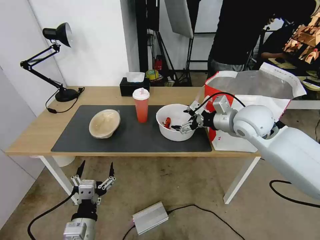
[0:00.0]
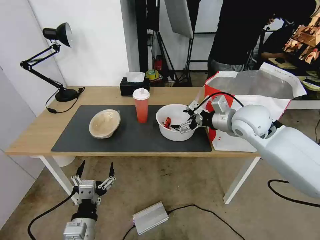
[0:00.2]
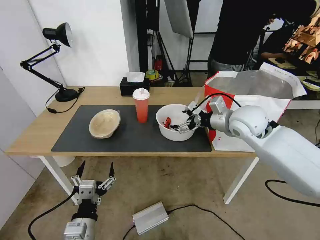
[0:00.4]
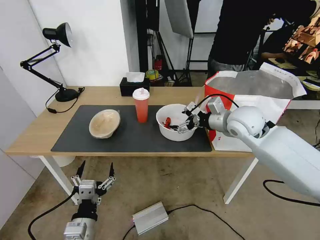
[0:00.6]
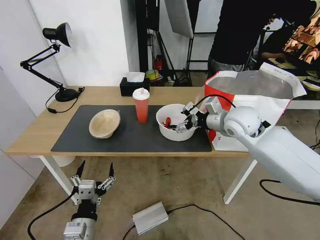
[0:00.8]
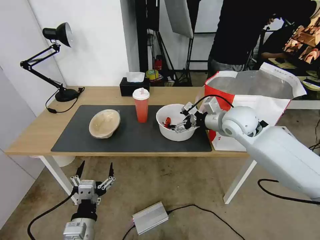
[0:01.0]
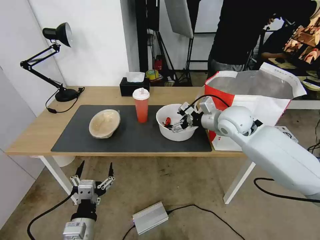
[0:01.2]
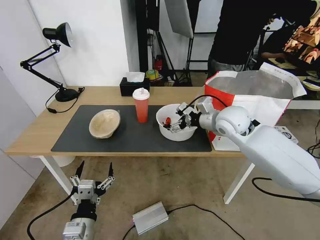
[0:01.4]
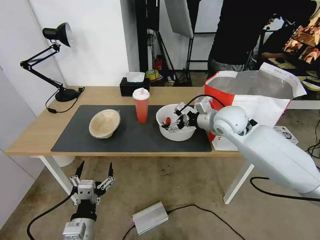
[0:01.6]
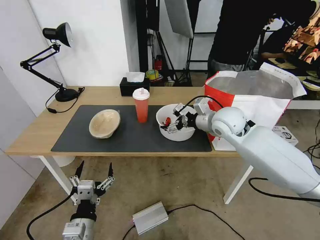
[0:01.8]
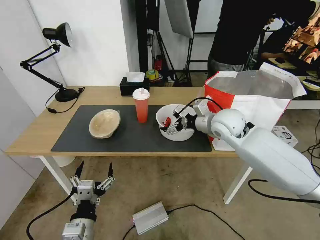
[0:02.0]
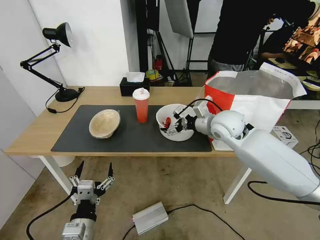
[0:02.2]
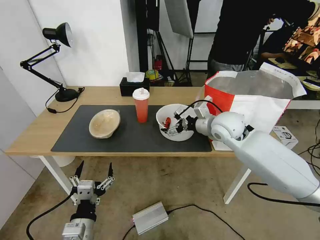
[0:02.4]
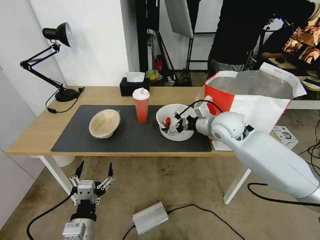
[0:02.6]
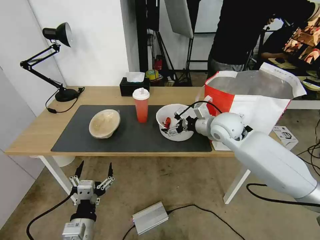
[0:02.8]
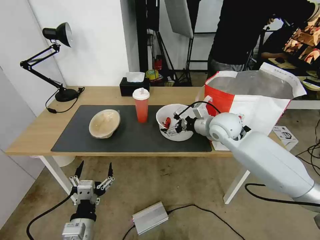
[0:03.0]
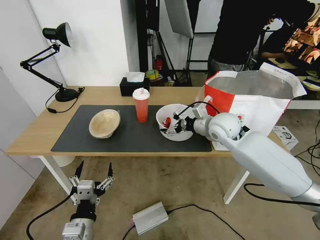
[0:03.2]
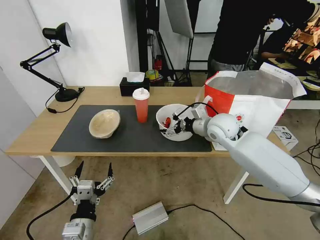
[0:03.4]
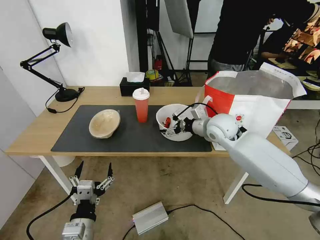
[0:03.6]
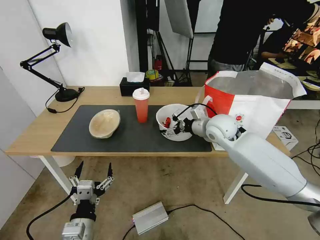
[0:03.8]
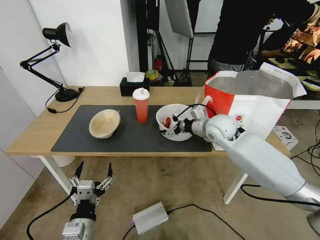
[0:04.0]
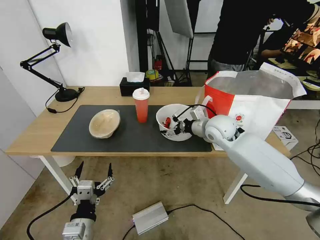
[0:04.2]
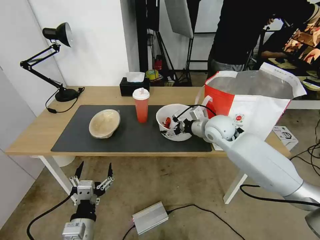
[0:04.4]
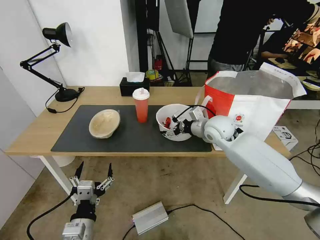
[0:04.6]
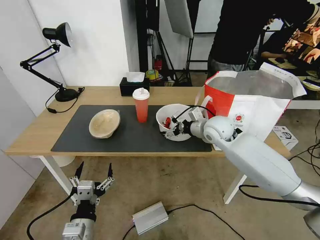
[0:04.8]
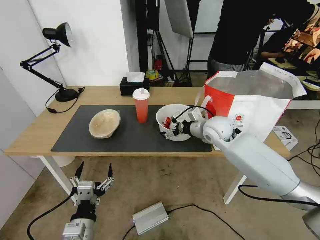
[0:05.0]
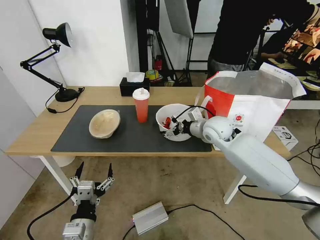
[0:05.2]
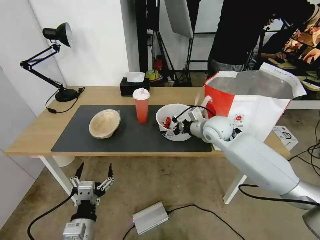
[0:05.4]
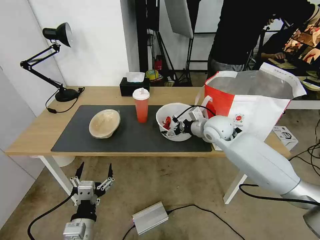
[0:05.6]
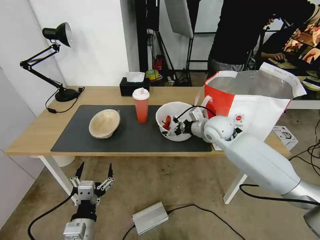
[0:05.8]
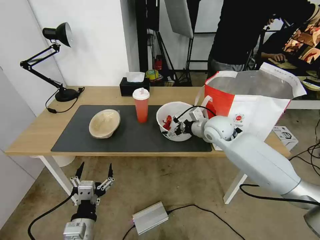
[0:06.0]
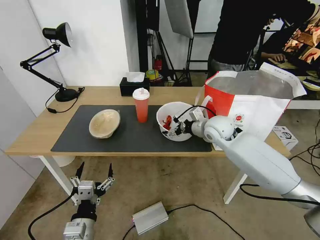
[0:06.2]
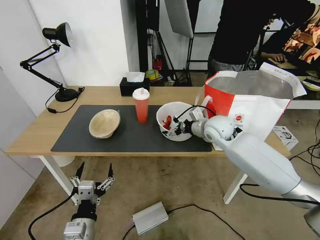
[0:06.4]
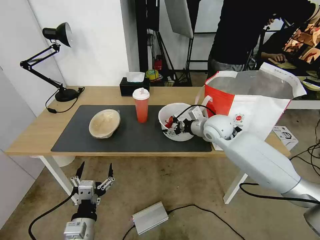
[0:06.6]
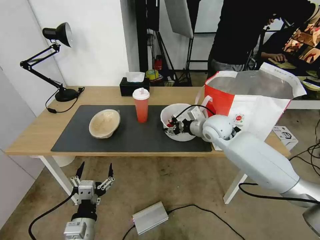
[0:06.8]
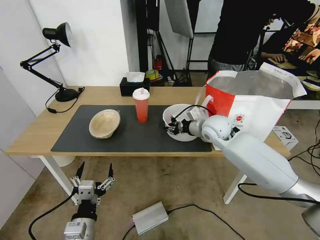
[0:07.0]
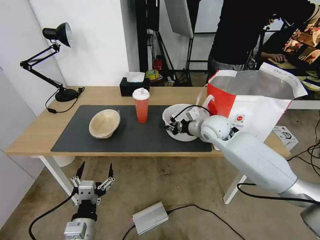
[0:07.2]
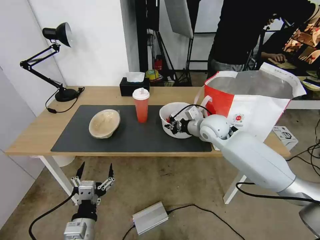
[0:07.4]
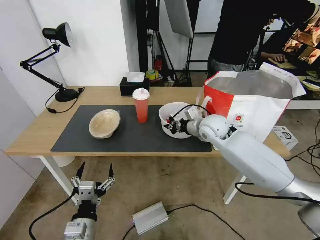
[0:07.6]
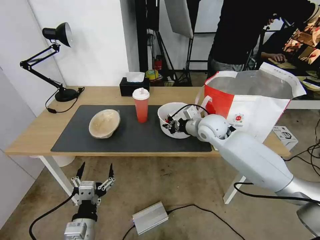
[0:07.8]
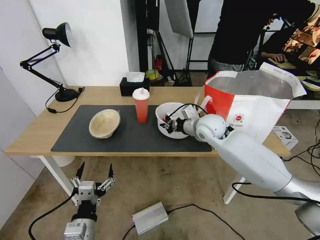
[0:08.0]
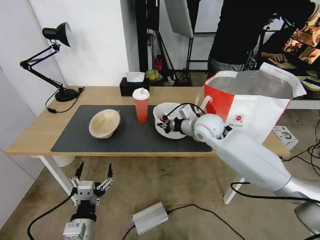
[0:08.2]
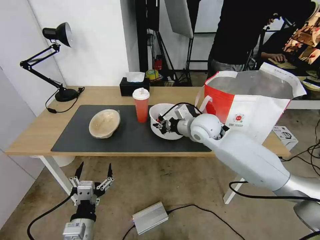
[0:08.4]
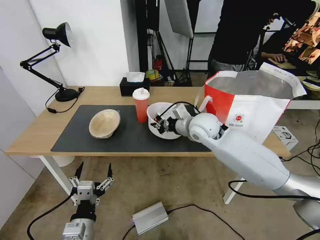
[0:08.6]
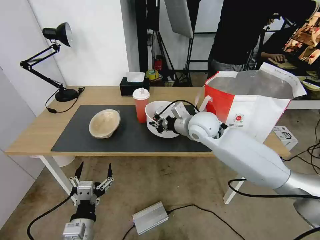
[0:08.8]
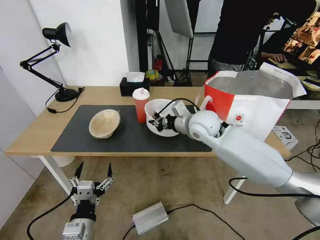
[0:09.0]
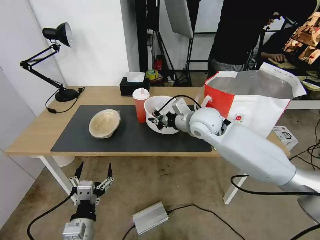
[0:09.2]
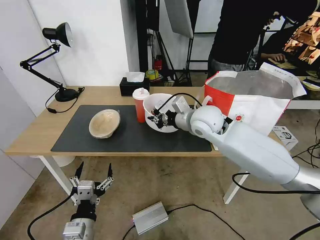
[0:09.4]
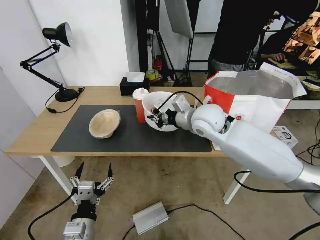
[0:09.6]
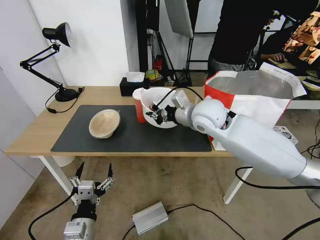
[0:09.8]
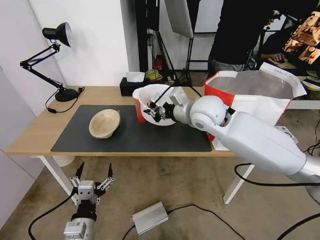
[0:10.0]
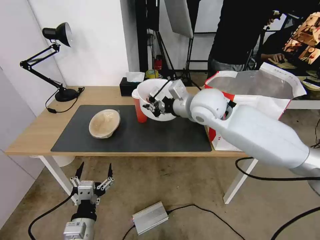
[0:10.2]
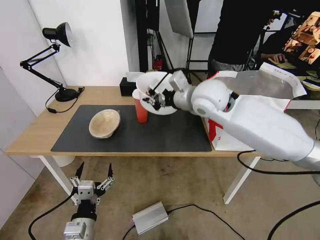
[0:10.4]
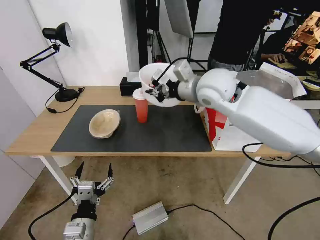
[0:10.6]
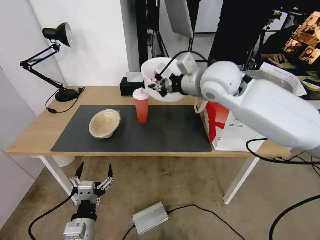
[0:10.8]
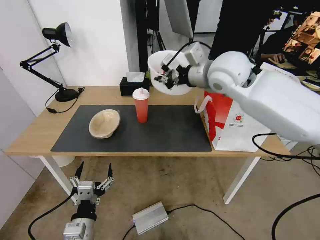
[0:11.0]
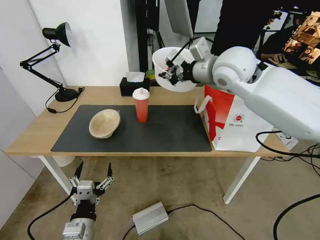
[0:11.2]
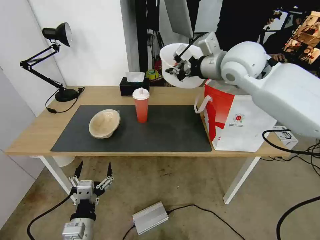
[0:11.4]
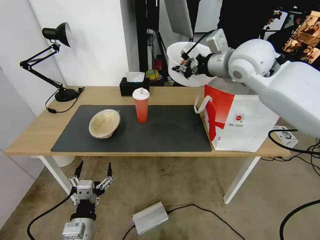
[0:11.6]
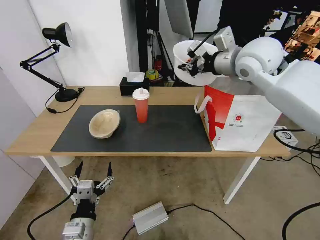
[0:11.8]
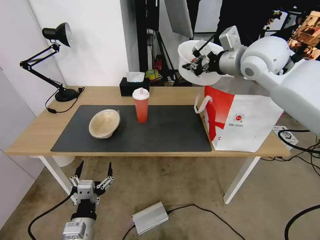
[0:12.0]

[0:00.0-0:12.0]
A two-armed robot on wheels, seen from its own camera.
Task of the whole recording: Pick up the trash from the table and place it into the takeout bag.
0:00.0 to 0:01.6: The right gripper changes place by some 5 cm.
0:01.6 to 0:04.4: The grippers make only small movements.
0:04.4 to 0:06.0: Neither gripper changes place.
0:06.0 to 0:07.6: The right gripper closes.
0:07.6 to 0:09.0: The right gripper changes place by approximately 5 cm.
0:09.0 to 0:10.4: The right gripper heads upward, covering about 10 cm.
0:10.4 to 0:12.0: The right gripper moves to the right and upward, some 15 cm.

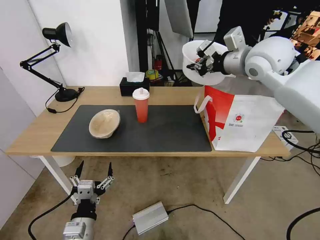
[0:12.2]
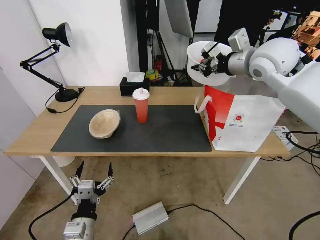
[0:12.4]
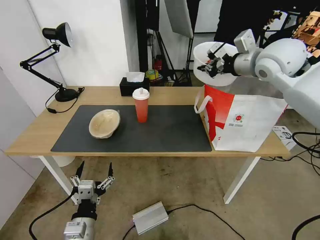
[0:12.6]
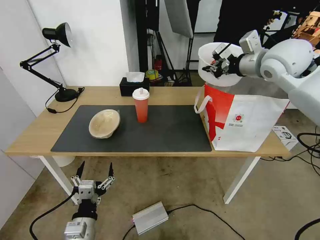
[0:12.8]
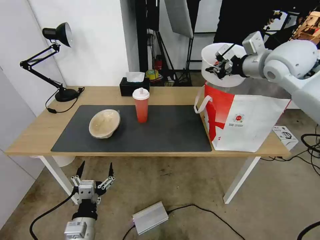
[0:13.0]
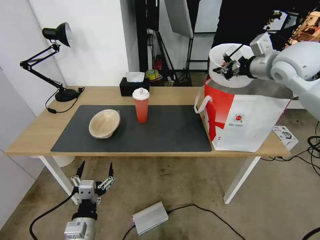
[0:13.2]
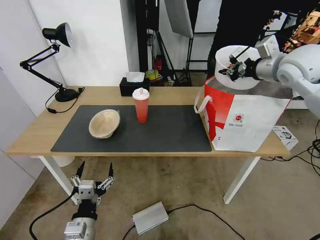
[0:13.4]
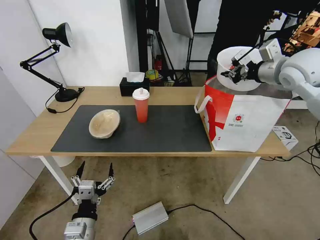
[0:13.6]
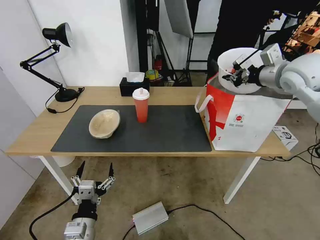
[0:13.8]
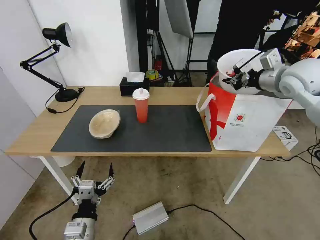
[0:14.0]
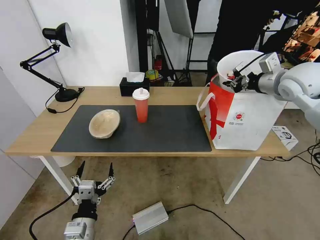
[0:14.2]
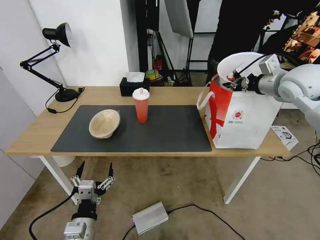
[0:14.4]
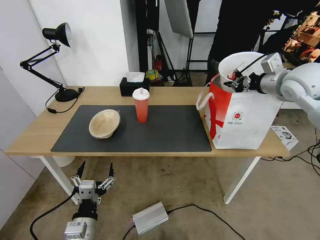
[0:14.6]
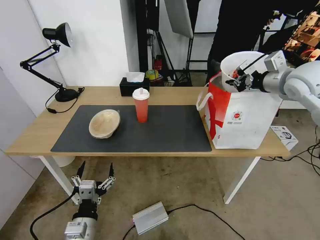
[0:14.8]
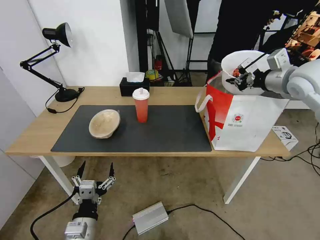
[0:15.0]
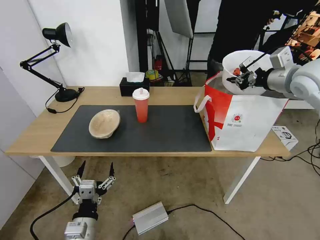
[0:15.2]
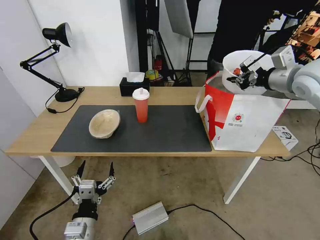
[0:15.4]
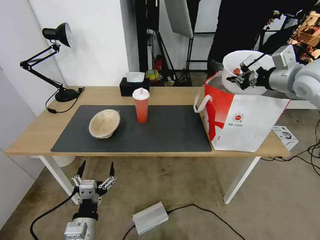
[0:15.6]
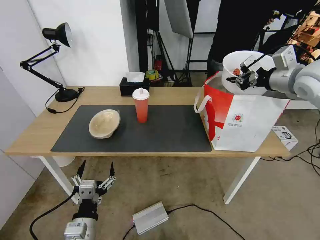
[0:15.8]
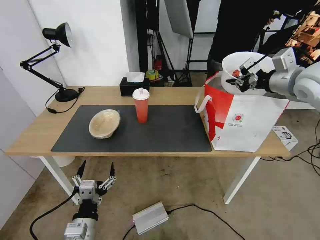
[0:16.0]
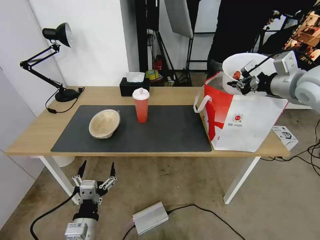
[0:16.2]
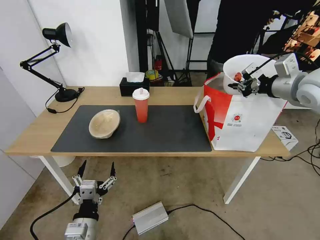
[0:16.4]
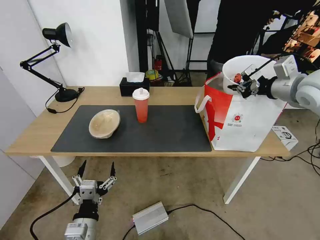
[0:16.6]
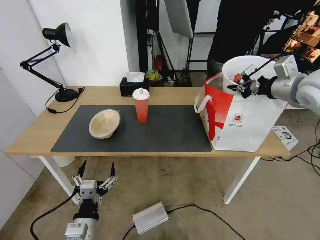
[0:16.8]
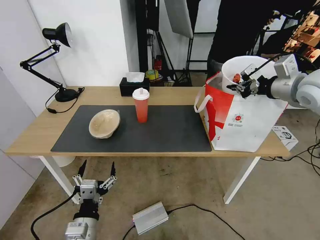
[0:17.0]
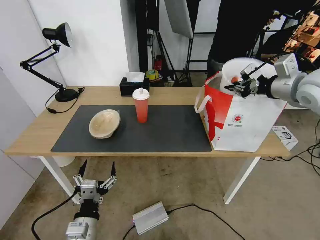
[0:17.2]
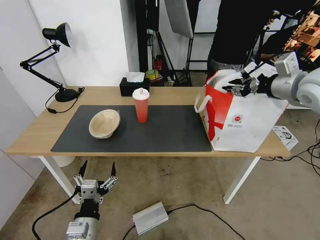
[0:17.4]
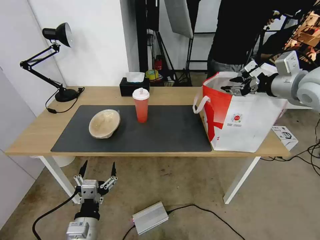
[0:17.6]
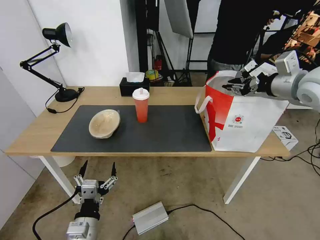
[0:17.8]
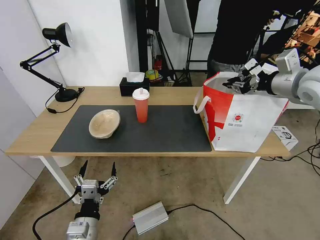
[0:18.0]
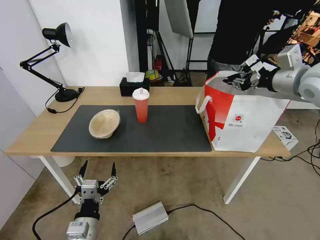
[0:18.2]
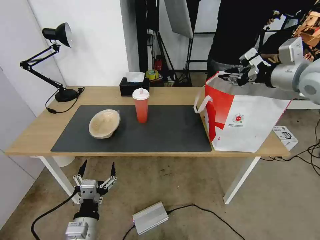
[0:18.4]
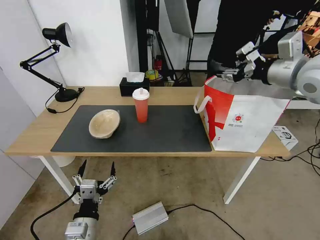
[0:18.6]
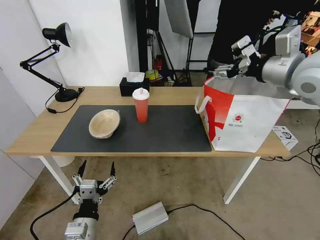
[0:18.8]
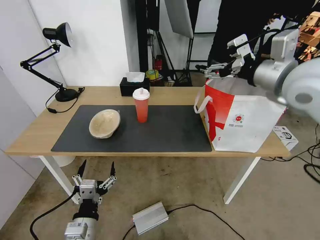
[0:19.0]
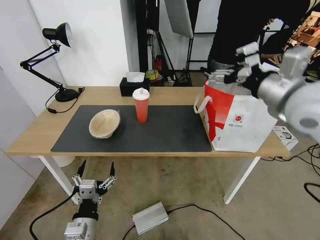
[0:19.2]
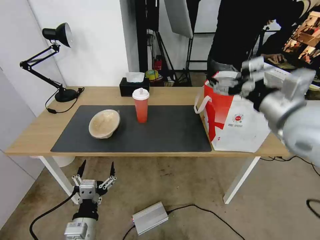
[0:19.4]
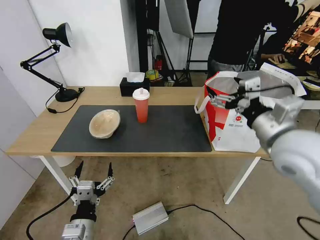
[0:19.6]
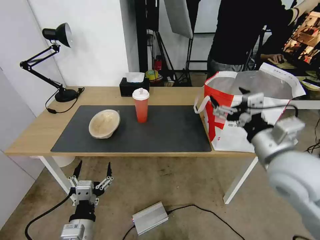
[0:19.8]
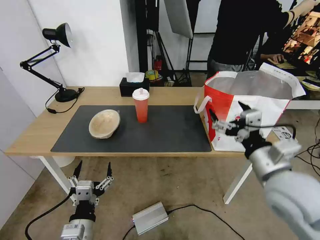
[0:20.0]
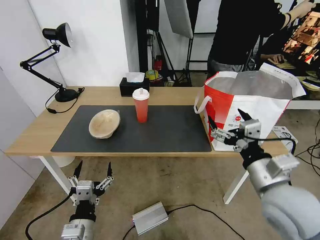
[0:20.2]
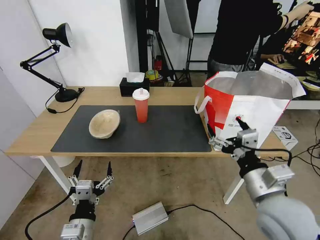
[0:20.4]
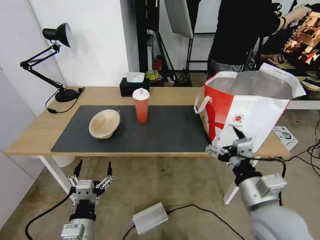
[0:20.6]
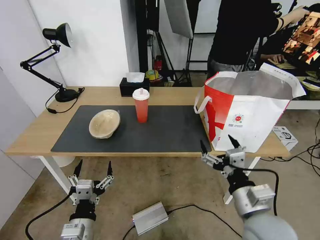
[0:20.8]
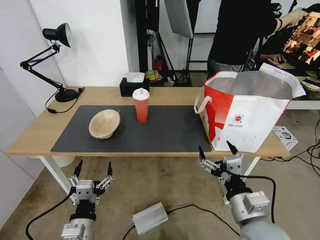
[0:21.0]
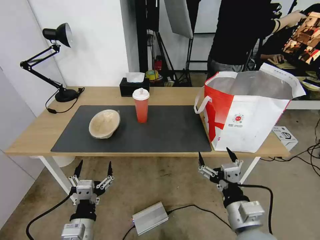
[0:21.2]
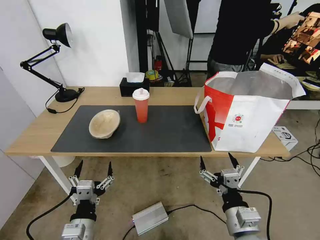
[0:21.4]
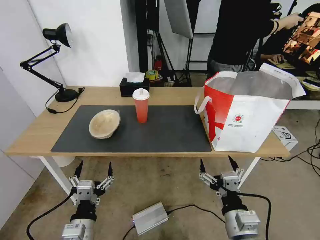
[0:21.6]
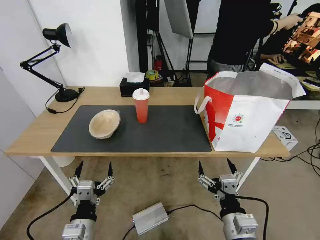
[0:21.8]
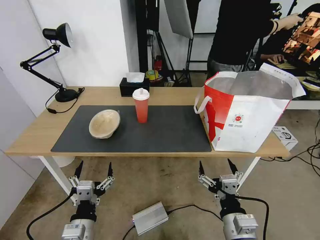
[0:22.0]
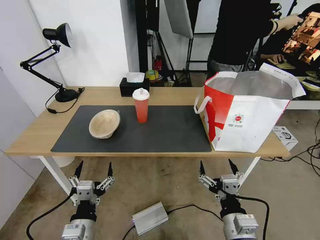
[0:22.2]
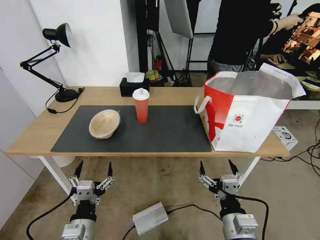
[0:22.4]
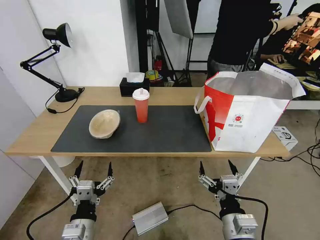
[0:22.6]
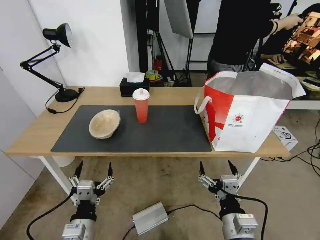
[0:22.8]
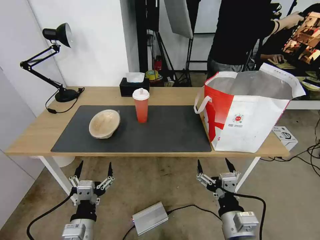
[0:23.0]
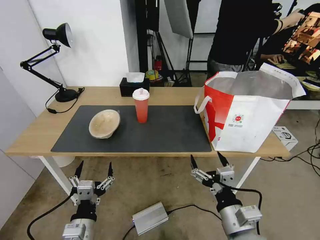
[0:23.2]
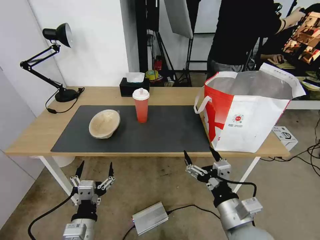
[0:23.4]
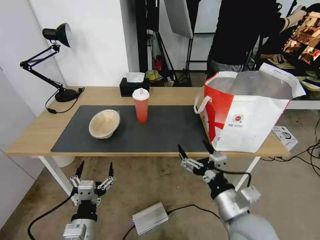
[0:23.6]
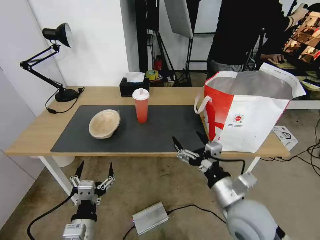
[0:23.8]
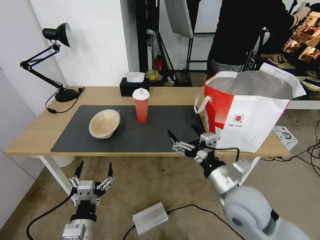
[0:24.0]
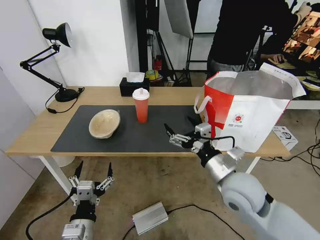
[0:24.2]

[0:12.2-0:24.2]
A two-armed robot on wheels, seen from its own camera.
Task of the whole recording: Pick up the trash from the table and place it into the takeout bag.
0:12.2 to 0:13.8: The right gripper travels to the right by about 10 cm.
0:13.8 to 0:18.2: There are only small adjustments of the grippers.
0:18.2 to 0:19.8: The right gripper is displaced backward, downward and to the left by roughly 25 cm, and opens its fingers.
0:19.8 to 0:21.2: The right gripper heads downward and backward, covering roughly 20 cm.
0:21.2 to 0:22.6: There are only small adjustments of the grippers.
0:22.6 to 0:24.2: The right gripper shifts roughly 15 cm forward and upward.
